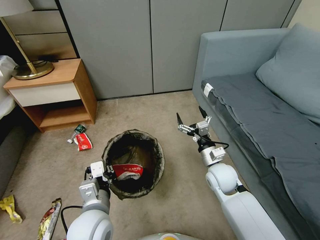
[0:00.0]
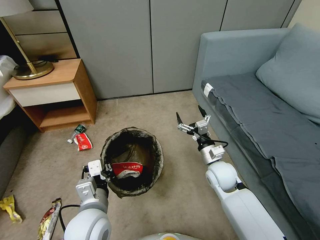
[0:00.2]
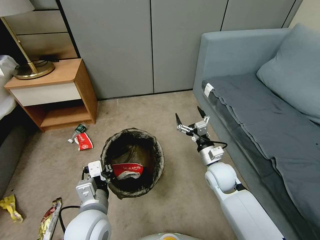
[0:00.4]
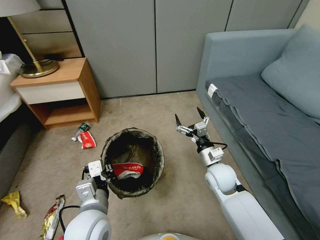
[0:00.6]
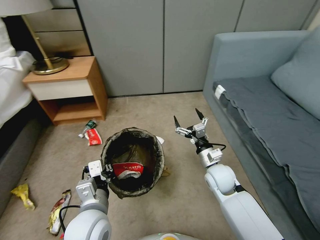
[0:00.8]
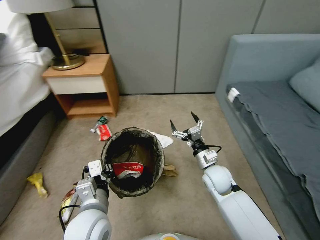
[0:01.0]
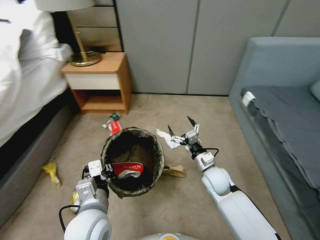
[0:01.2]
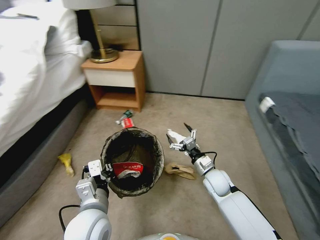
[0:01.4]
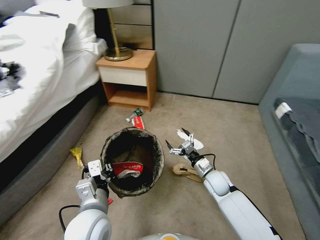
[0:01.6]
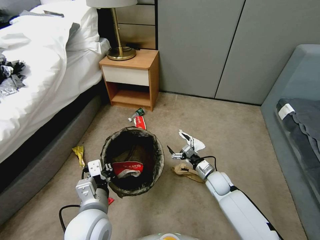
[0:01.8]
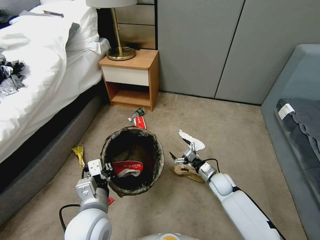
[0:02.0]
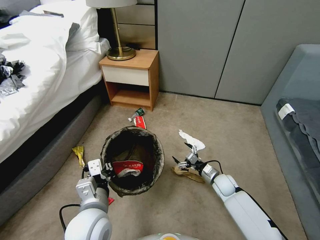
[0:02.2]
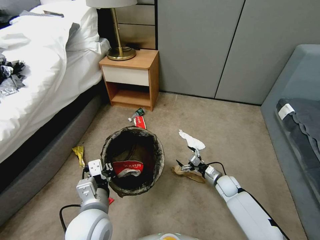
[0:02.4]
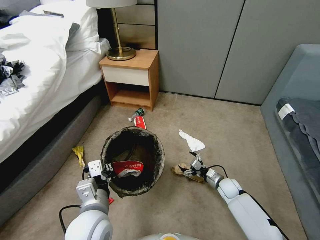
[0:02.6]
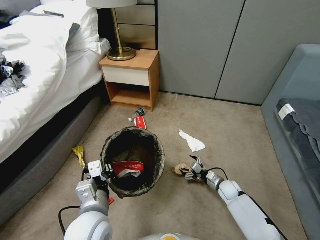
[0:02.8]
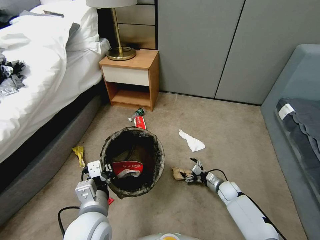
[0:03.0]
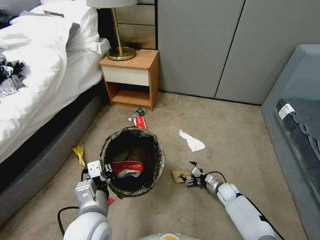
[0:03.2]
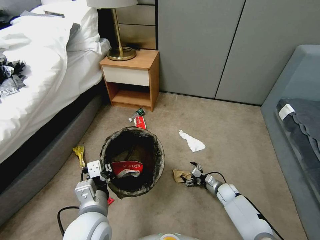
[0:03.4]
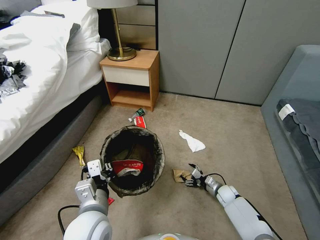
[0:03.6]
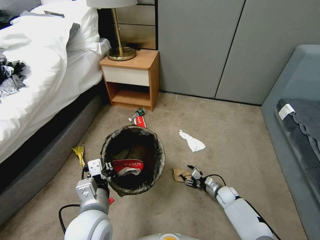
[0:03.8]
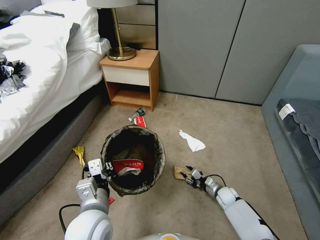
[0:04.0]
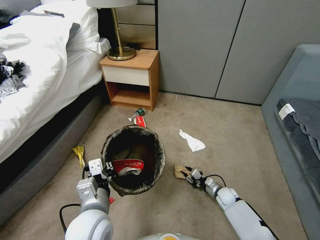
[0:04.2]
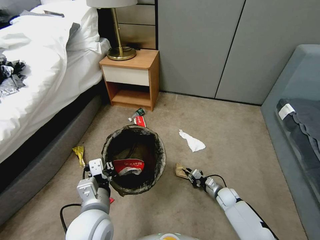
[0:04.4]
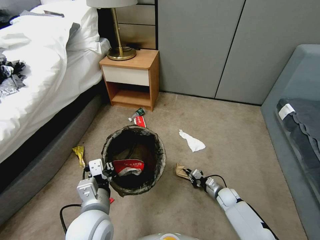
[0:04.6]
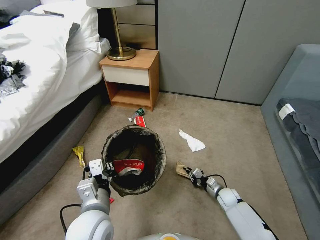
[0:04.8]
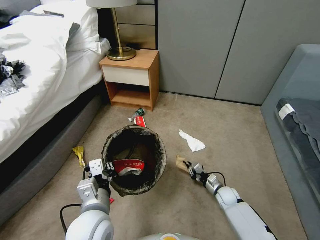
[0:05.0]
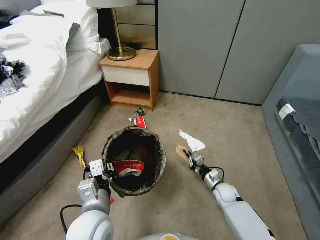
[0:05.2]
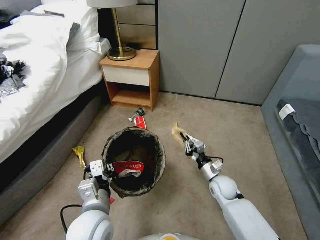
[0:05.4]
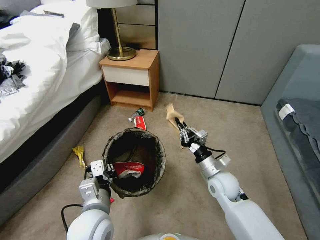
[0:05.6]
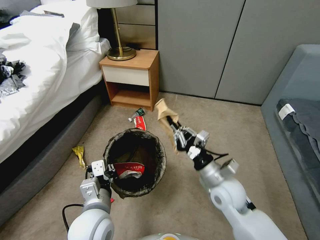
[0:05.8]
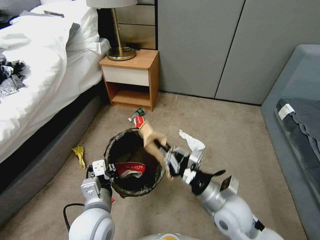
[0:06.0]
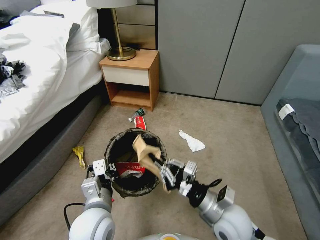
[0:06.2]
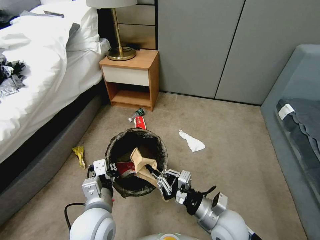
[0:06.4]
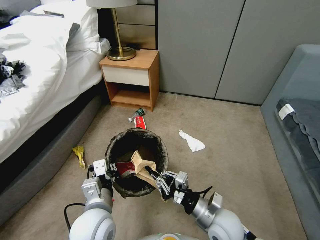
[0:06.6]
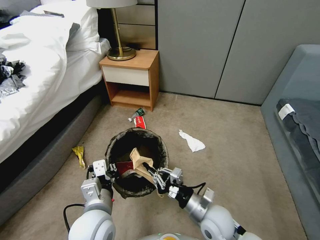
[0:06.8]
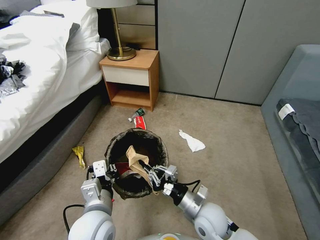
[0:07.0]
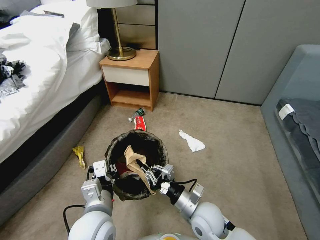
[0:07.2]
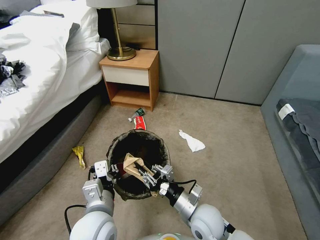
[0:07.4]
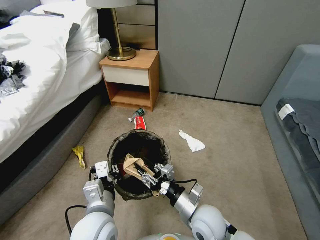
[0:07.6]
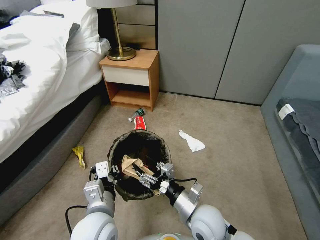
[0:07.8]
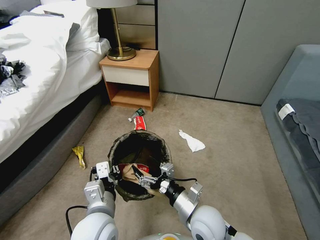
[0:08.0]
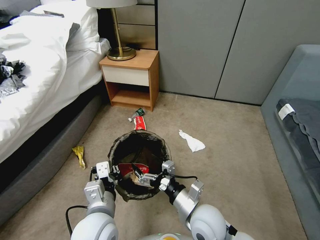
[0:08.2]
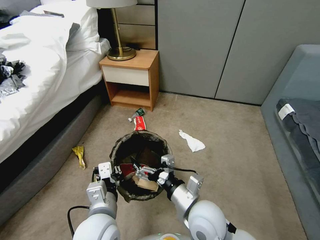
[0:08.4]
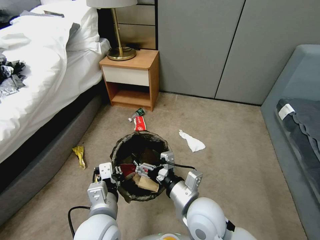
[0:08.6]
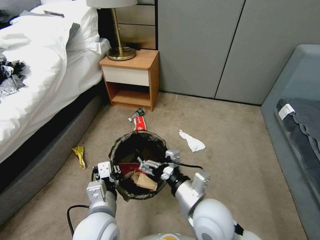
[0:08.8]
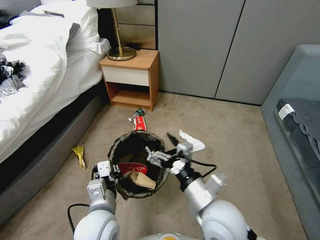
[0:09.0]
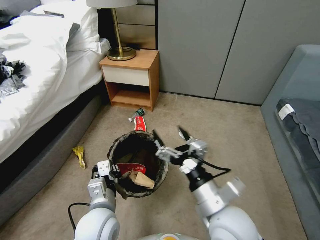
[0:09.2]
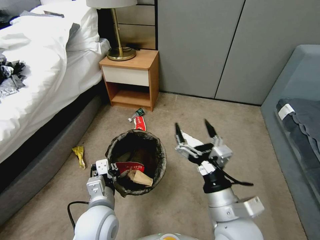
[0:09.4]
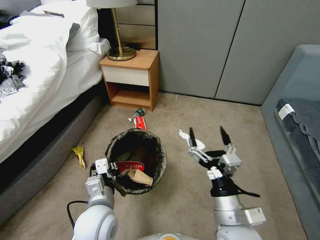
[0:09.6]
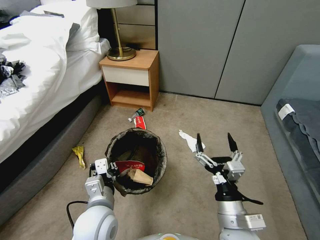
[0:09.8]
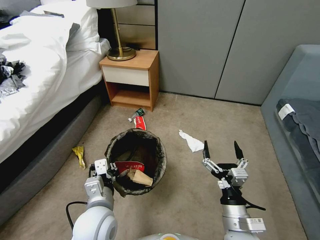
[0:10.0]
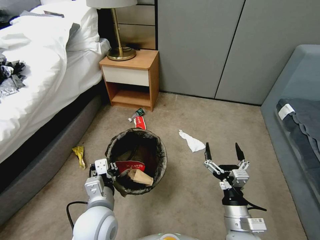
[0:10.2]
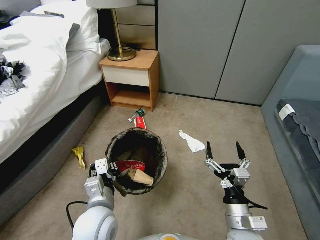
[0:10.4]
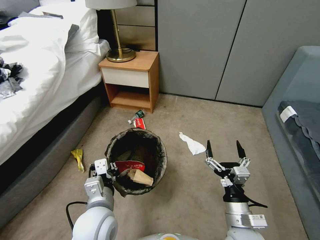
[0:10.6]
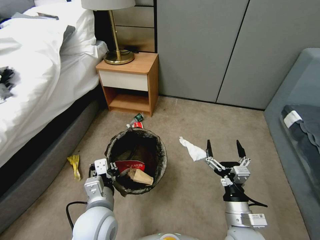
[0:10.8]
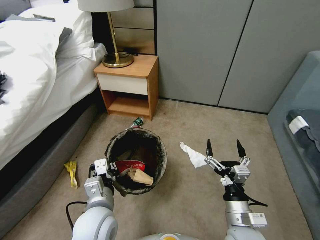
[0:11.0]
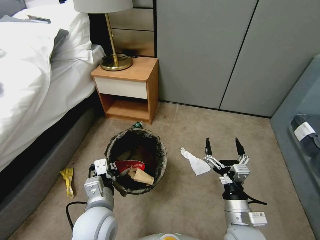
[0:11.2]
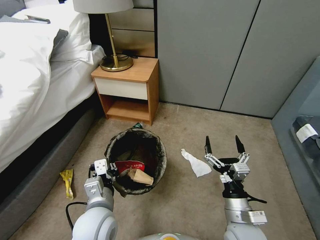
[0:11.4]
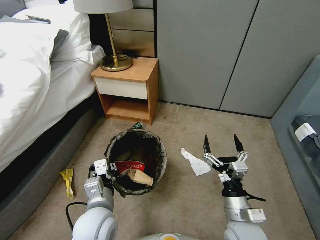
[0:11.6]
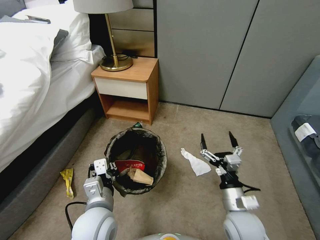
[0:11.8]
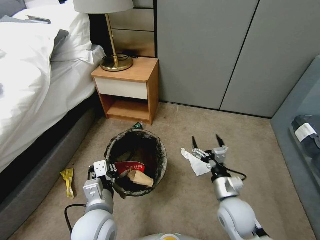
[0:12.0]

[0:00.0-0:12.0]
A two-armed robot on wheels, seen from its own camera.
Task of the whole recording: Pick up the trash bin, then pick up the garbage from the floor and place it into the trash bin.
0:00.0 to 0:01.6: The right gripper is displaced downward by roughly 10 cm.
0:01.6 to 0:03.0: The right gripper is displaced downward and to the right by some 15 cm.
0:03.0 to 0:04.4: The right gripper closes up.
0:04.4 to 0:06.0: The right gripper heads upward and to the left, covering about 30 cm.
0:06.0 to 0:07.6: The right gripper is displaced downward and to the left by about 10 cm, and opens its fingers.
0:07.6 to 0:09.0: The right gripper shifts some 10 cm upward, and opens.
0:09.0 to 0:10.4: The right gripper goes approximately 15 cm downward and to the right.
0:10.4 to 0:12.0: The right gripper moves forward, roughly 10 cm.

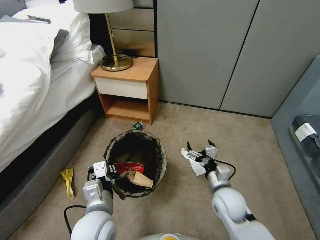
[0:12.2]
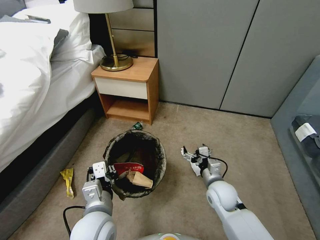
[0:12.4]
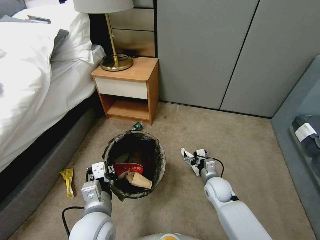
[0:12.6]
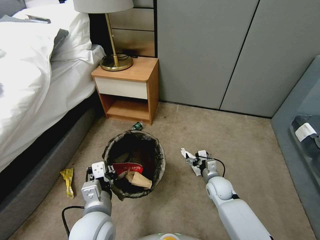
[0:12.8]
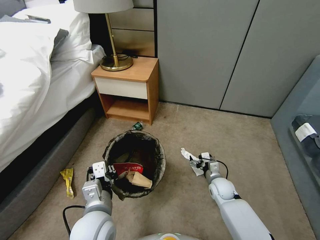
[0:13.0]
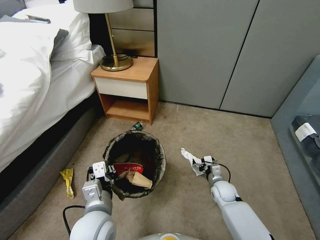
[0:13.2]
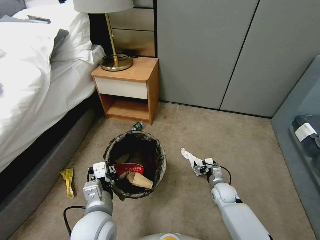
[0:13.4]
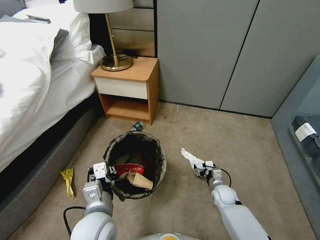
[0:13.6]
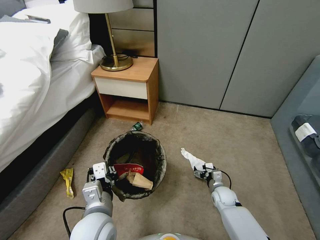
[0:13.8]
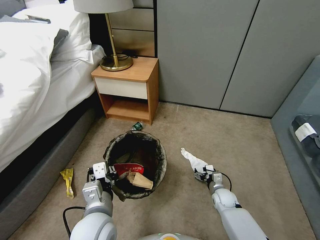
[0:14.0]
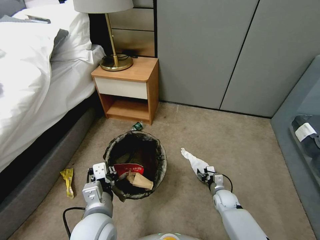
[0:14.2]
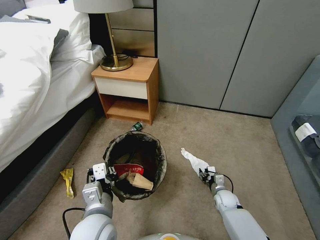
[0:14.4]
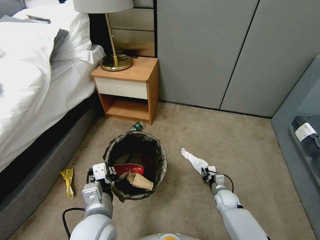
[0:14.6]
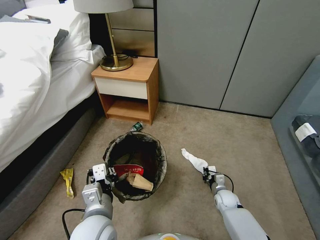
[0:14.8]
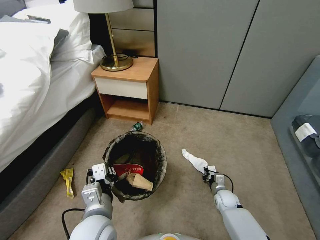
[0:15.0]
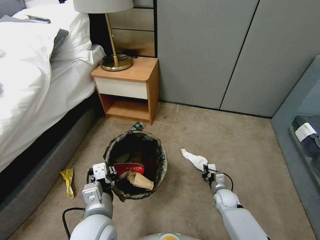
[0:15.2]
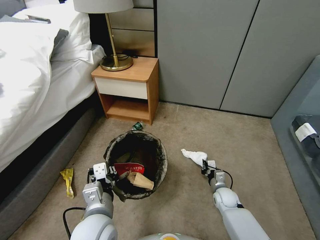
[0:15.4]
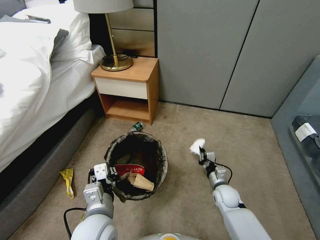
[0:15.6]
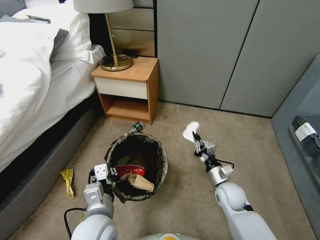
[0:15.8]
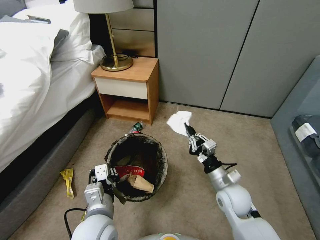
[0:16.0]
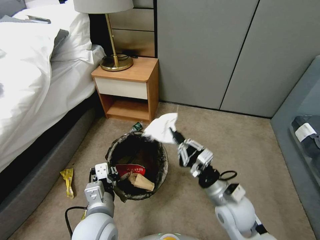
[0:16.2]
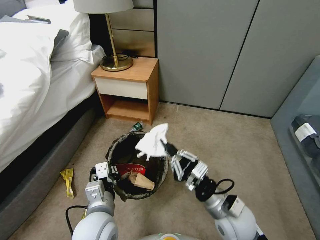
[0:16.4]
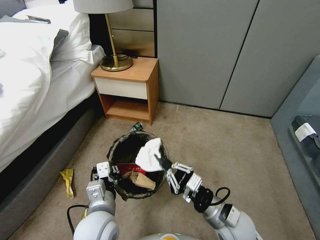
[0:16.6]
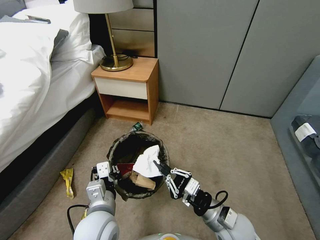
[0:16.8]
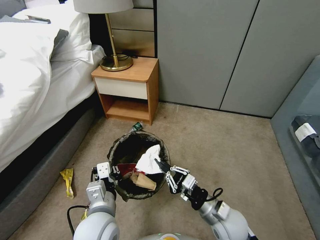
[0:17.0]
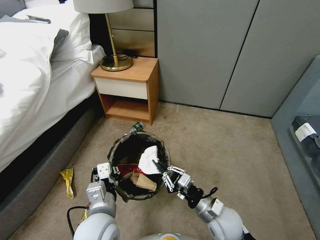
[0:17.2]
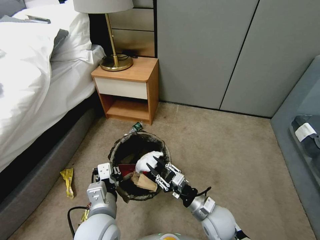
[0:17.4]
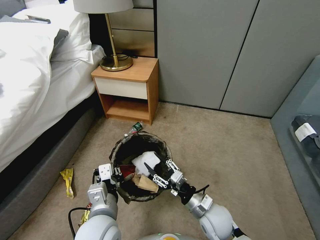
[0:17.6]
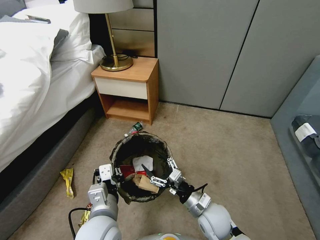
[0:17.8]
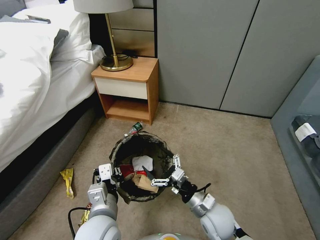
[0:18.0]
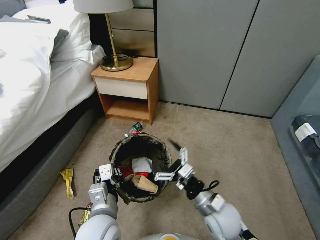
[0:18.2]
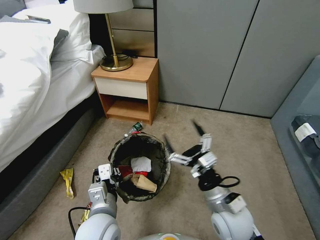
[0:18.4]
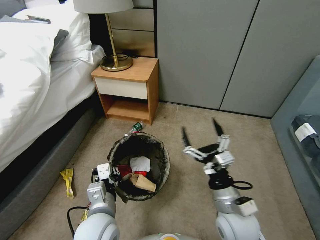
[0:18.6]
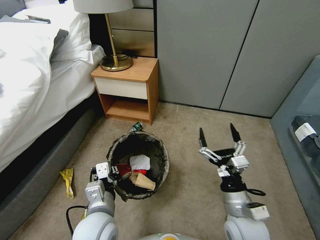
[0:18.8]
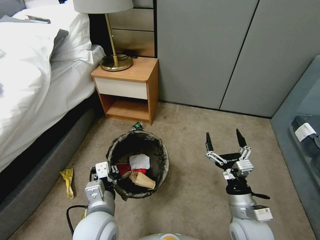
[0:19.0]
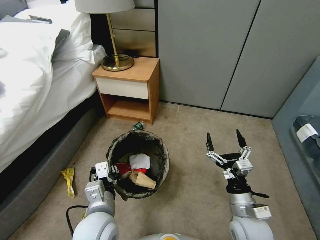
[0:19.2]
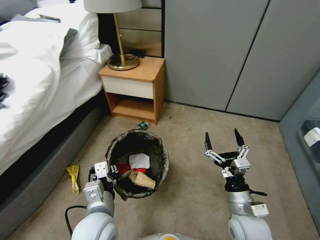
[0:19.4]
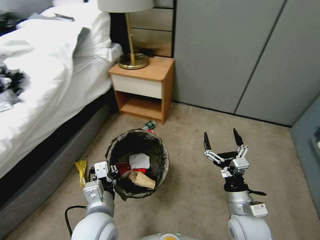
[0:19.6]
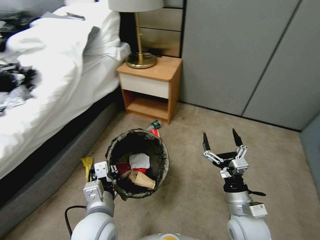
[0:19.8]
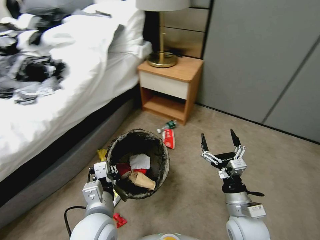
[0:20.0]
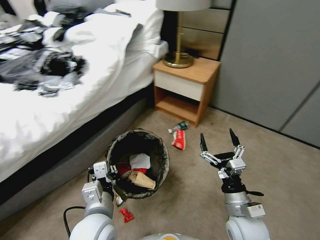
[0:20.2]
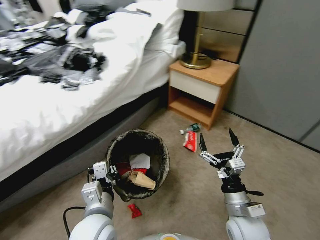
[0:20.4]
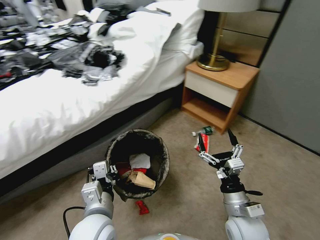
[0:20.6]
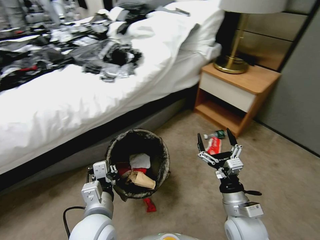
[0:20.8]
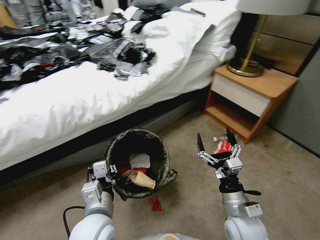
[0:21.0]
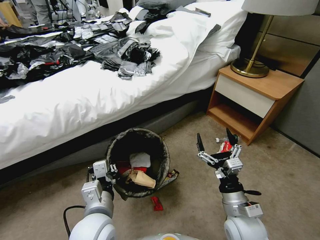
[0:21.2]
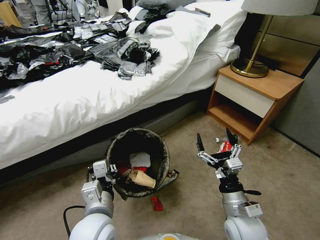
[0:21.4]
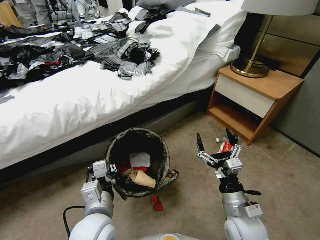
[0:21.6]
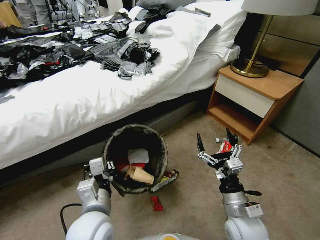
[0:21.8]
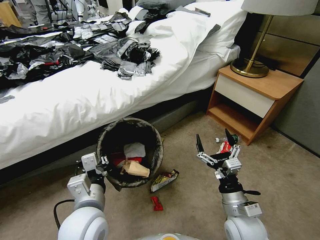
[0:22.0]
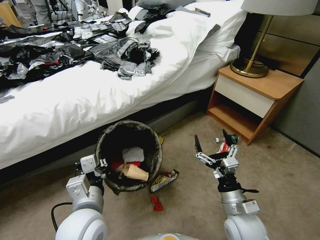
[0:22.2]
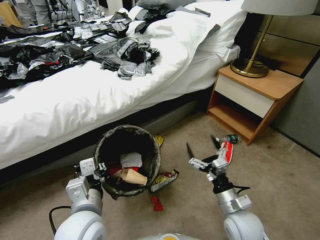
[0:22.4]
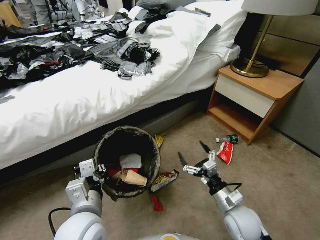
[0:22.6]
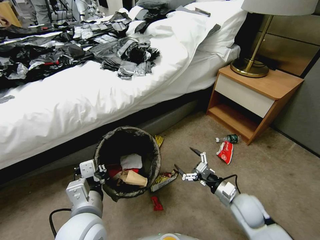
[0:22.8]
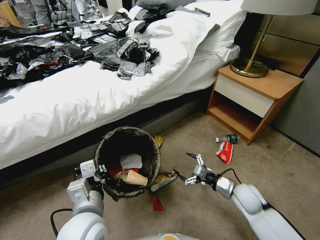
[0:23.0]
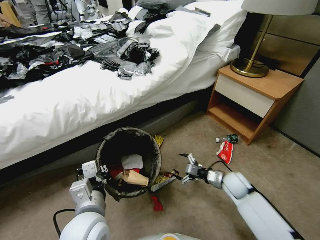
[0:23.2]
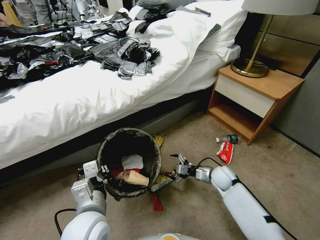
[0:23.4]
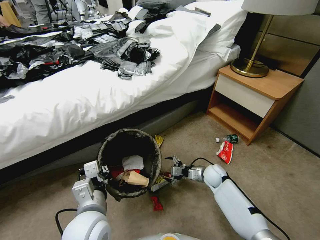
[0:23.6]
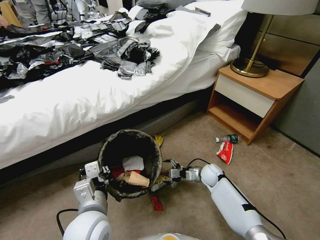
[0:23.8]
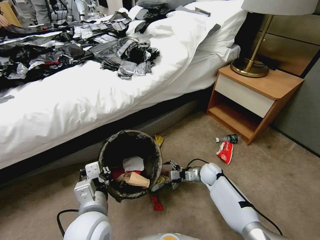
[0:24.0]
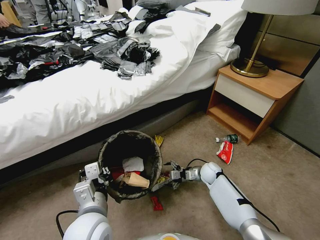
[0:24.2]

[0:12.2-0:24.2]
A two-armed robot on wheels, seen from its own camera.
Task of the whole recording: Pick up the trash bin, then pick up the garbage from the floor and place it into the trash bin.
0:12.2 to 0:13.8: The right gripper is displaced downward by roughly 15 cm.
0:13.8 to 0:15.2: The right gripper closes.
0:15.2 to 0:16.6: The right gripper goes about 25 cm upward and backward.
0:16.6 to 0:18.2: The right gripper opens up.
0:18.2 to 0:19.8: The right gripper moves to the right, about 5 cm.
0:21.2 to 0:22.6: The right gripper moves approximately 5 cm.
0:22.6 to 0:24.2: The right gripper moves forward and downward, roughly 25 cm.
